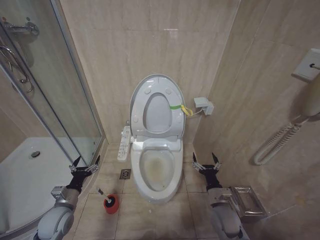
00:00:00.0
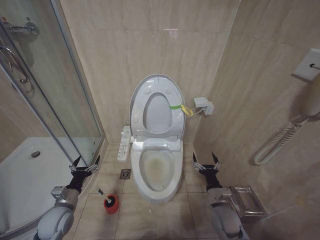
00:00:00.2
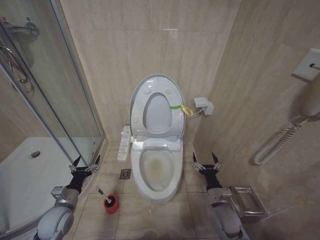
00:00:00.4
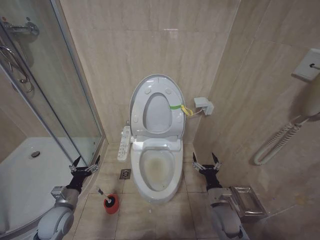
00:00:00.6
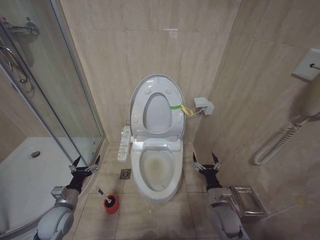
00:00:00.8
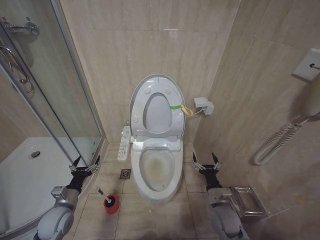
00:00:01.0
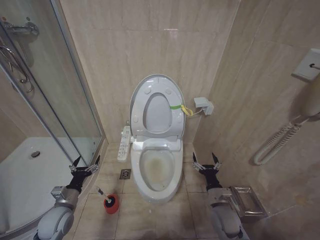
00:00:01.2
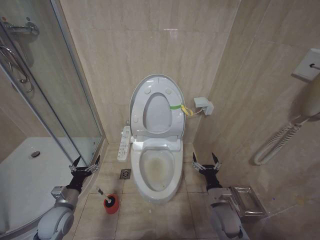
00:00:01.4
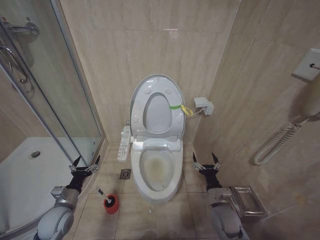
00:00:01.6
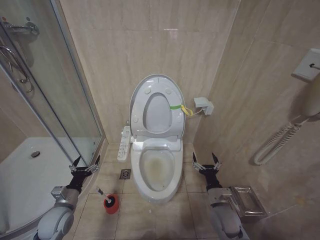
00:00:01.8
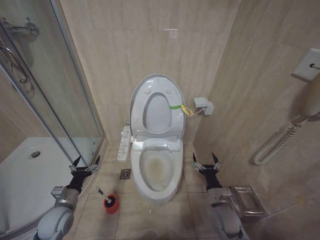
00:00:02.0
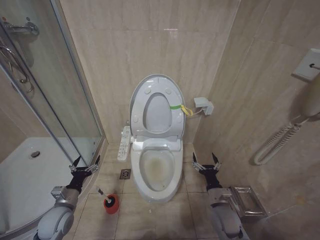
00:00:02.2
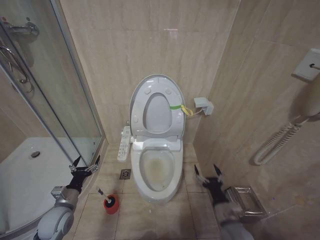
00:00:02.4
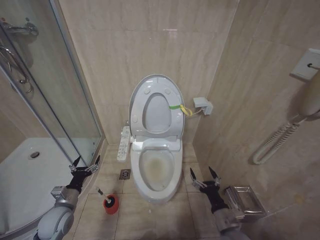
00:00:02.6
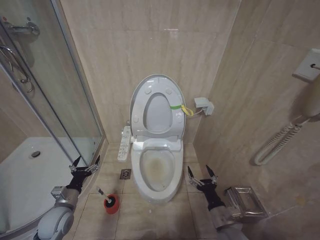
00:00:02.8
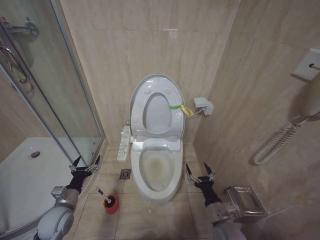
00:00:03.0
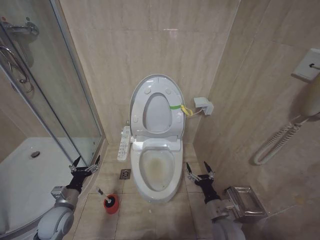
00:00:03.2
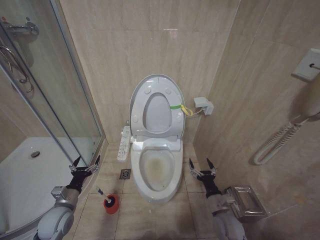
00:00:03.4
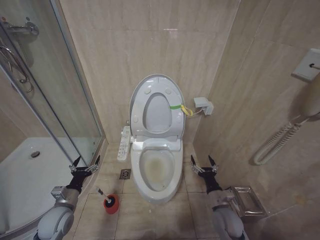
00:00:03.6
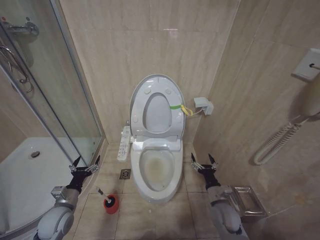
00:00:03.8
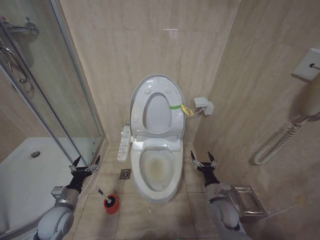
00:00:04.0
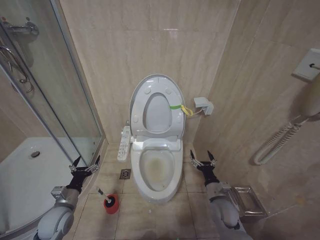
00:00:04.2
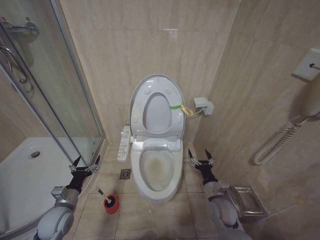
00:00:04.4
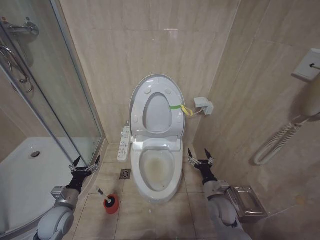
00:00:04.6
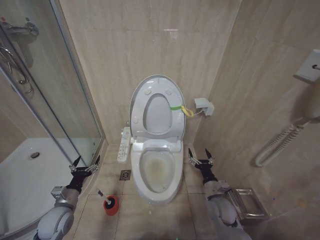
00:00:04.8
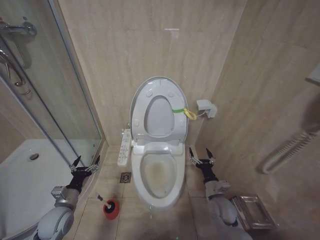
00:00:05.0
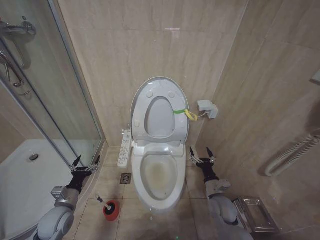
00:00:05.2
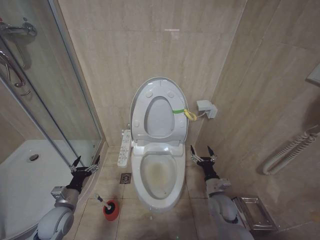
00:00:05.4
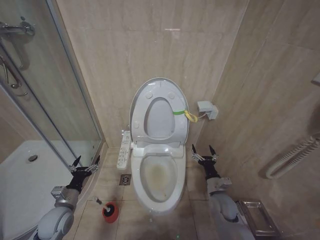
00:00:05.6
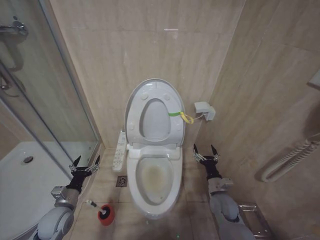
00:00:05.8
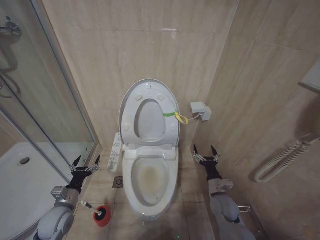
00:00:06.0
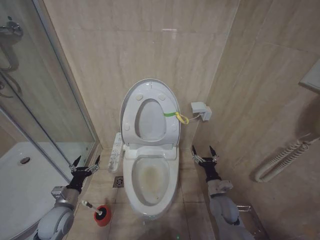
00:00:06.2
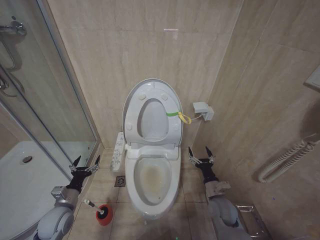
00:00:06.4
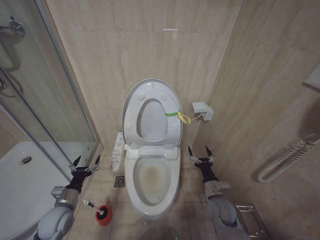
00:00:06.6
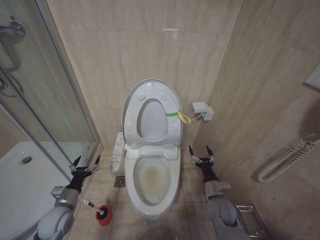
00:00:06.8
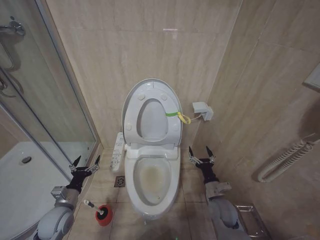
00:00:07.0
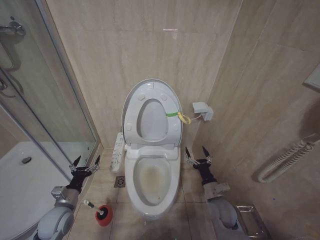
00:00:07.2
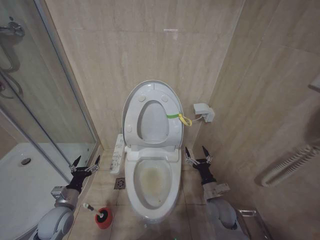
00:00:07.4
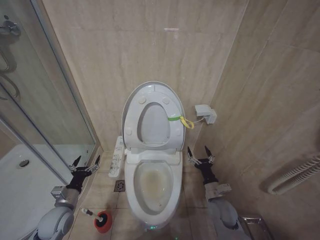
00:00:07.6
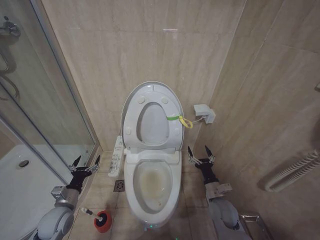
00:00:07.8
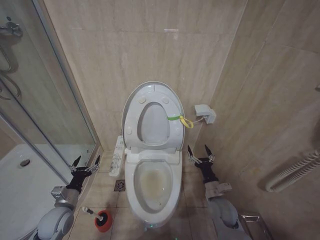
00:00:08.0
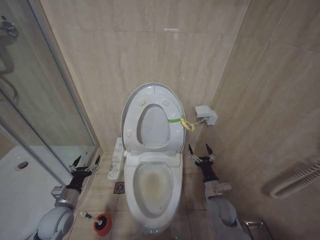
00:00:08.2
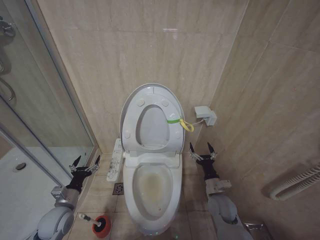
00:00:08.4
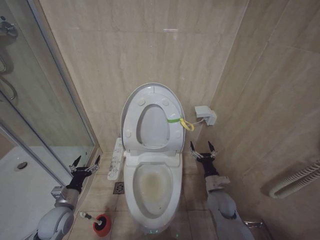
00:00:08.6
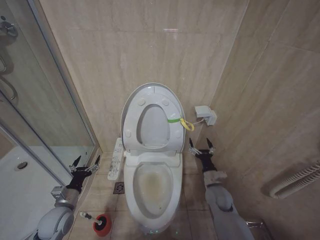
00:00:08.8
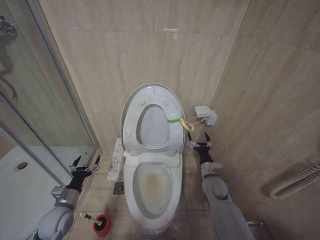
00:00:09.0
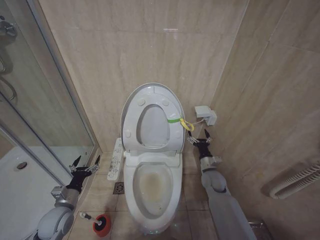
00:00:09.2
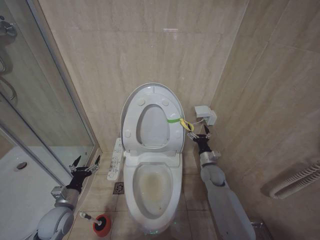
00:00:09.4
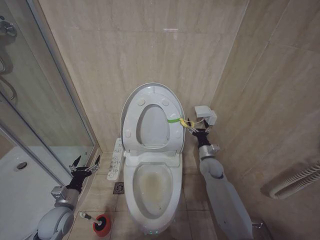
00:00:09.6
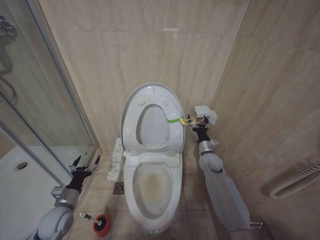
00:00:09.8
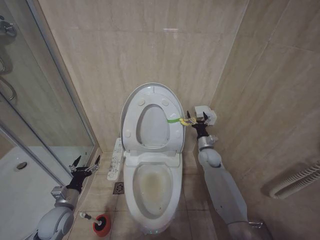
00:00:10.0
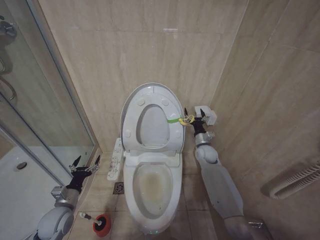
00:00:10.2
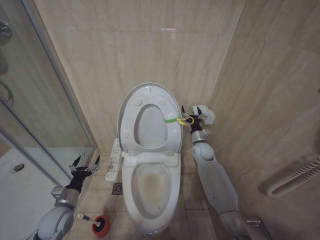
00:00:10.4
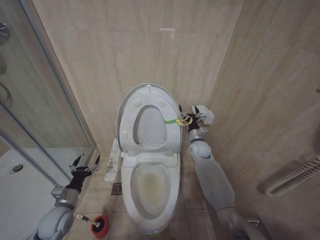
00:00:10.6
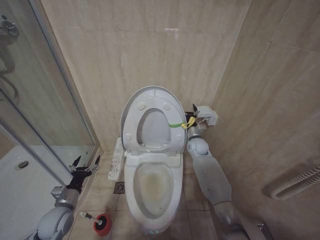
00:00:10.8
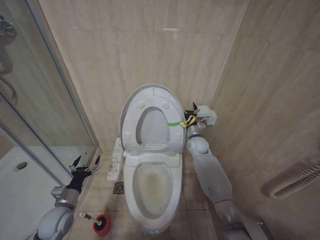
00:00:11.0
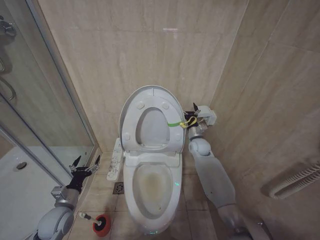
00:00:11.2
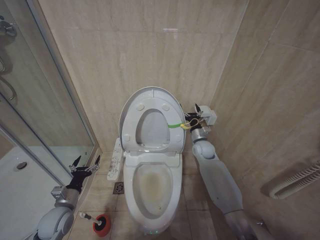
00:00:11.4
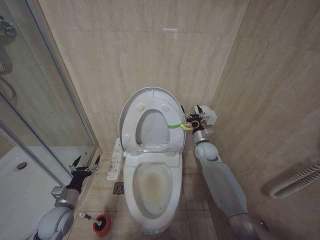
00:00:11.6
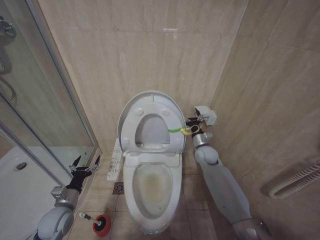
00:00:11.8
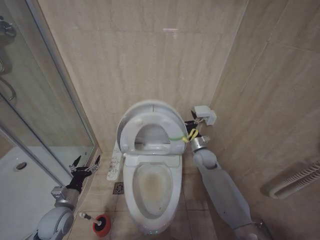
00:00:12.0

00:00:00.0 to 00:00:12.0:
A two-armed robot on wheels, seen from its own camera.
Task of the whole recording: Open the toilet lid, clean the toilet bowl with a toilet brush, close the toilet lid, and flush.
00:00:00.0 to 00:00:01.6: The two grippers keep their place.
00:00:01.6 to 00:00:03.0: The right gripper shifts some 5 cm backward.
00:00:03.0 to 00:00:04.4: The right gripper shifts approximately 10 cm forward.
00:00:04.4 to 00:00:07.6: The grippers move only a little.
00:00:07.6 to 00:00:09.0: The right gripper shifts approximately 5 cm forward.
00:00:09.0 to 00:00:10.4: The right gripper travels forward and upward by roughly 15 cm.
00:00:10.4 to 00:00:12.0: The grippers stay close to where they were, moving slightly.

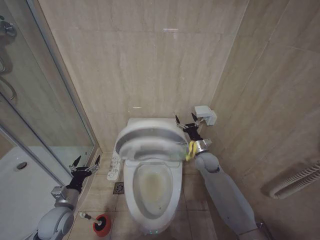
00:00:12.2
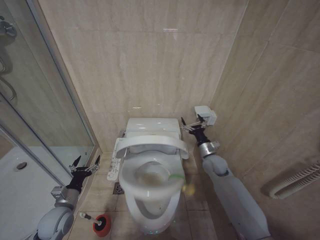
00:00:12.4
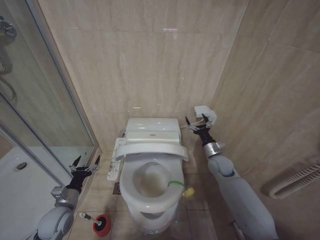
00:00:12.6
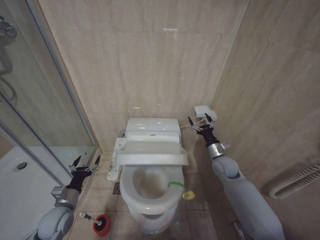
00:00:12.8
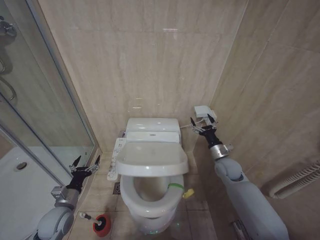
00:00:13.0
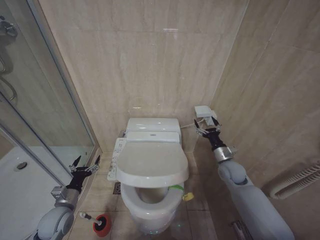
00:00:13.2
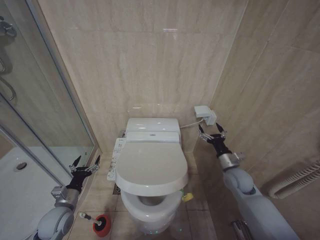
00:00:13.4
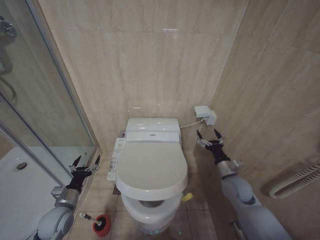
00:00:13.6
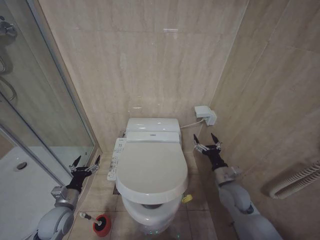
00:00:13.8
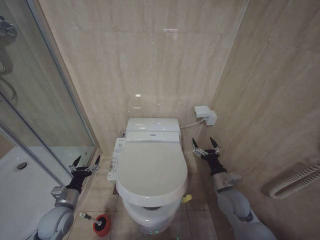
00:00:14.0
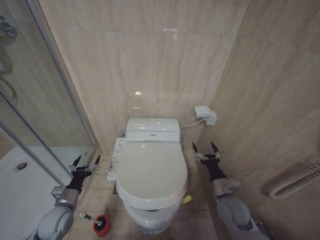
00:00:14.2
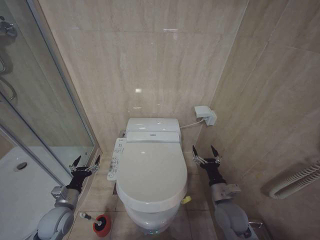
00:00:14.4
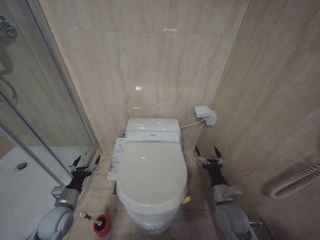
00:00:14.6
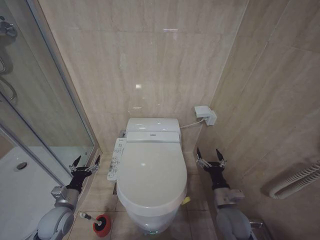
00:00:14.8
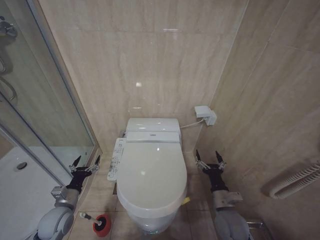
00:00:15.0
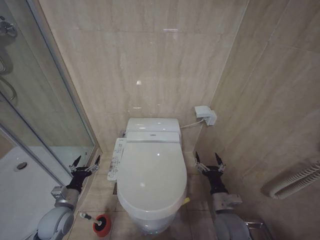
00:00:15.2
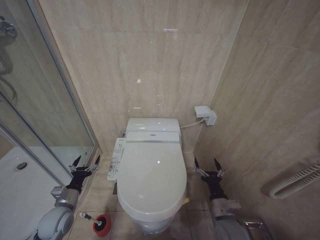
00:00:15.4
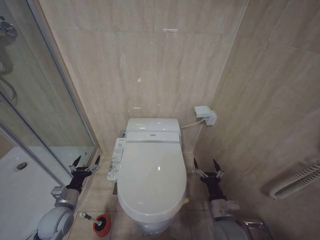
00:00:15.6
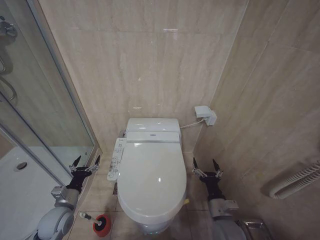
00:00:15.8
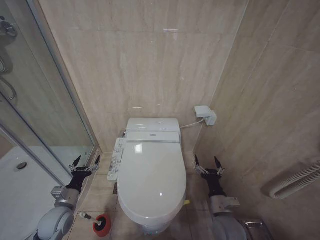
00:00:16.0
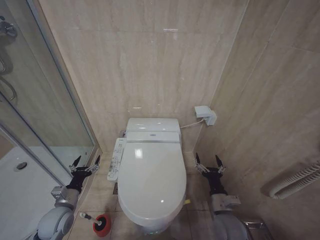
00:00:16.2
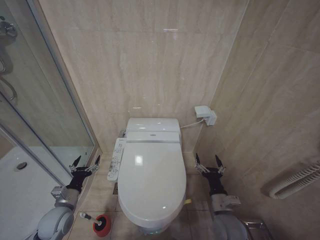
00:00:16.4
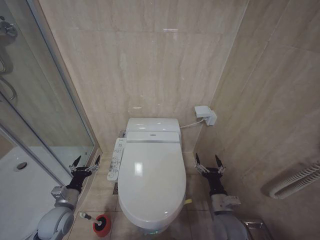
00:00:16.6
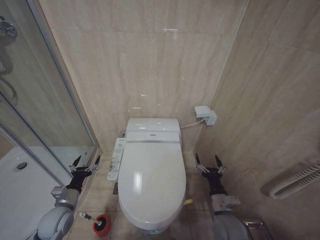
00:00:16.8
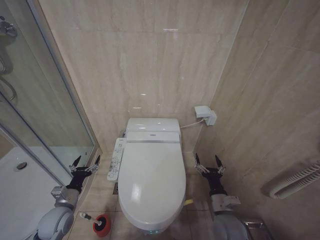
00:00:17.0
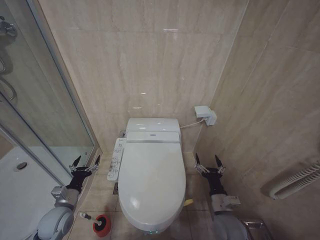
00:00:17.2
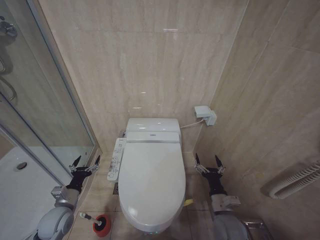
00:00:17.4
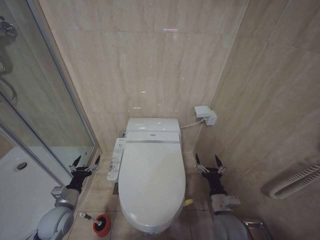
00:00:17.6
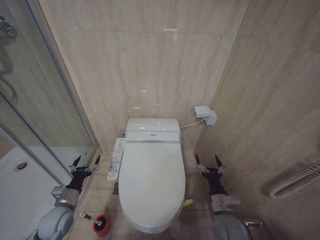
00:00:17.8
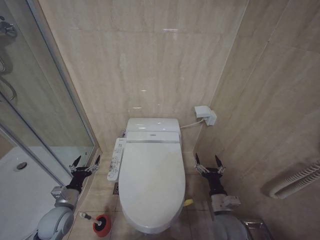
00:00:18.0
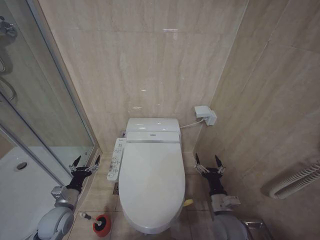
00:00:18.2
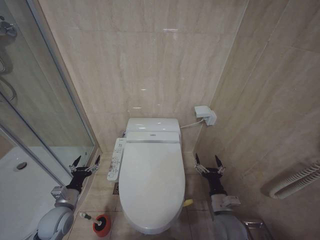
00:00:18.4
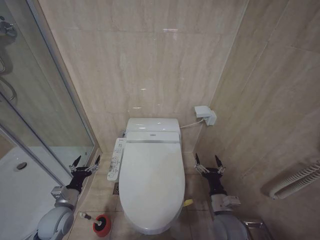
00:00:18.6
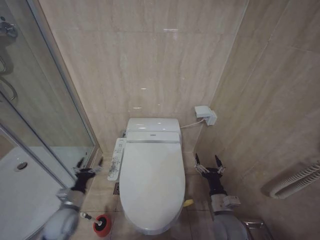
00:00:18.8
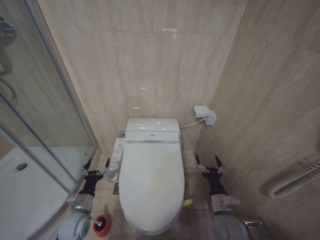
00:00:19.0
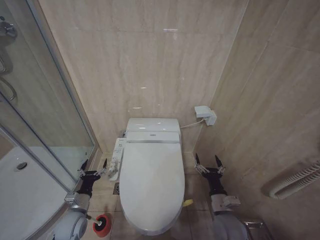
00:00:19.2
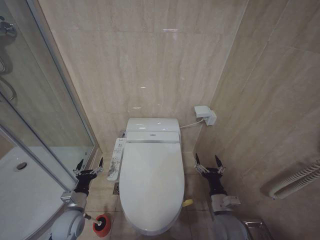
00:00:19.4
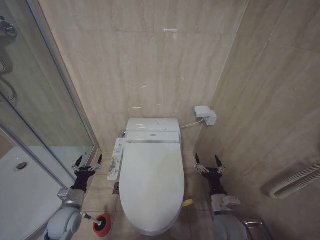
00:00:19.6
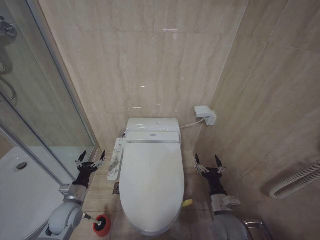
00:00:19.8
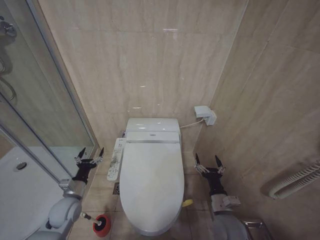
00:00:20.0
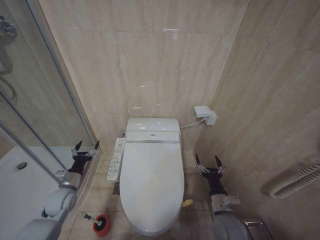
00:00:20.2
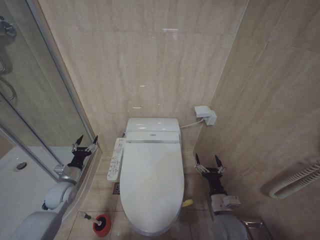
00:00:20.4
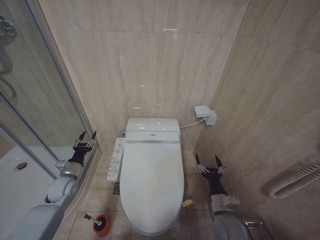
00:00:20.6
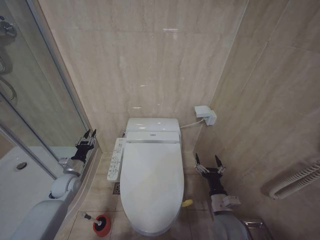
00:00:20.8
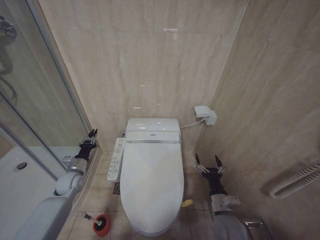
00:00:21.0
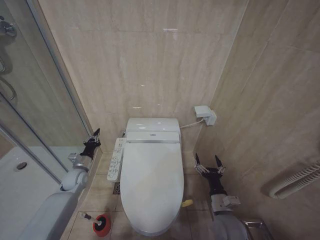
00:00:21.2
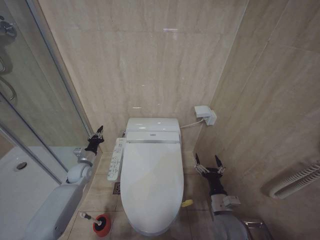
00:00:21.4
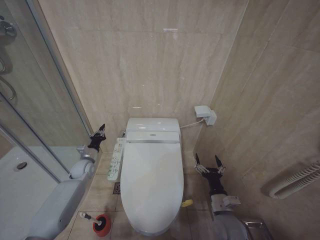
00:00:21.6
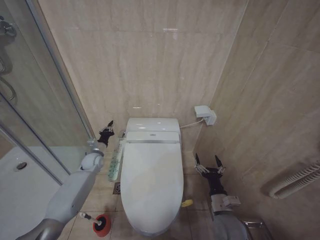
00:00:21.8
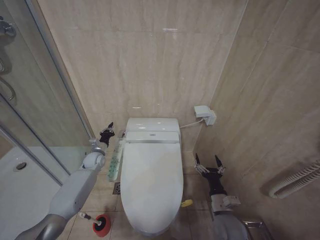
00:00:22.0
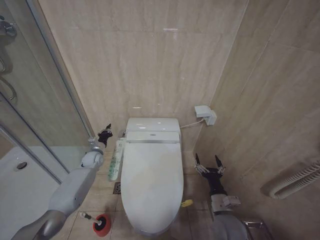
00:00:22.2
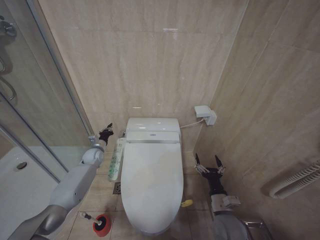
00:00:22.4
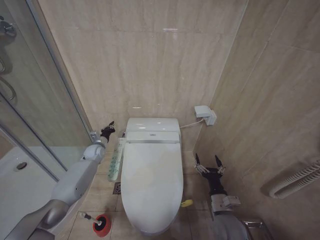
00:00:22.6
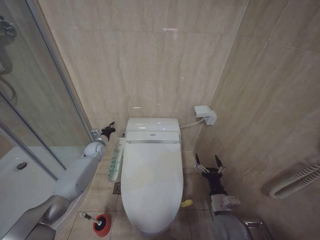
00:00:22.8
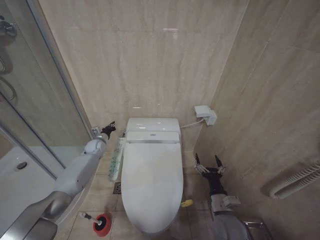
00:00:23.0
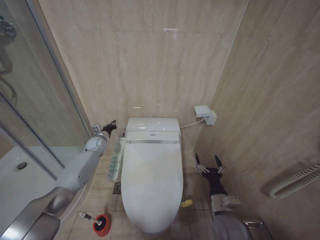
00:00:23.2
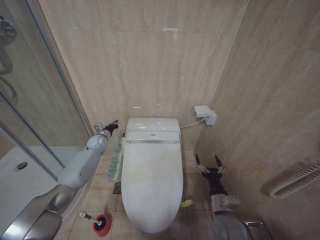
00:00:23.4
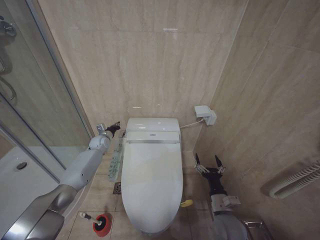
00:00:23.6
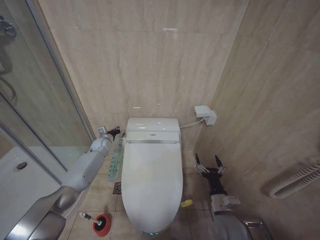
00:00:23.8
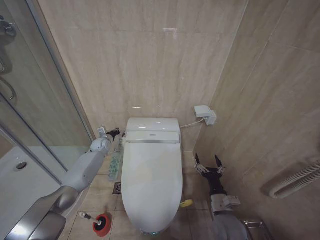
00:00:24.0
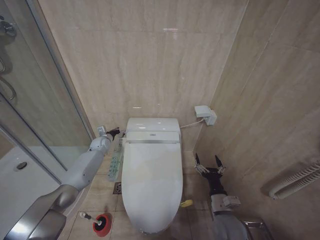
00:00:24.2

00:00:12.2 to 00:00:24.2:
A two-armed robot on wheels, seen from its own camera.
Task of the whole recording: Open the toilet lid, clean the toilet bowl with a toilet brush, close the toilet lid, and flush.
00:00:12.2 to 00:00:13.8: The right gripper travels backward and to the right by about 15 cm.
00:00:13.8 to 00:00:15.2: The right gripper shifts about 10 cm backward and to the left.
00:00:16.6 to 00:00:18.2: The two grippers keep their place.
00:00:19.8 to 00:00:21.2: The left gripper heads forward, covering roughly 15 cm, and closes up.
00:00:21.2 to 00:00:22.6: The left gripper shifts approximately 10 cm forward.
00:00:22.6 to 00:00:24.2: The left gripper shifts by some 5 cm.
